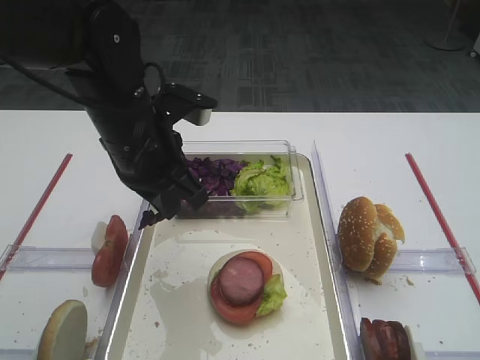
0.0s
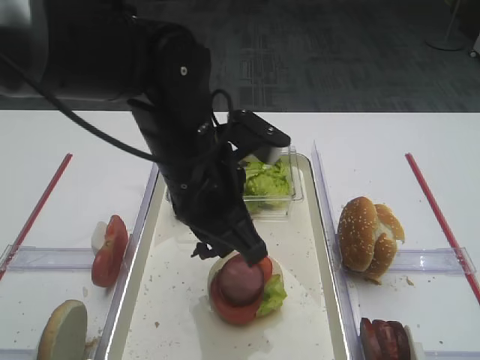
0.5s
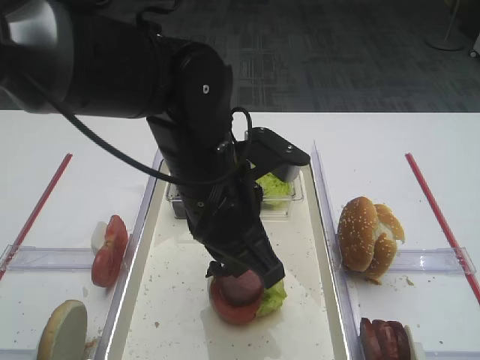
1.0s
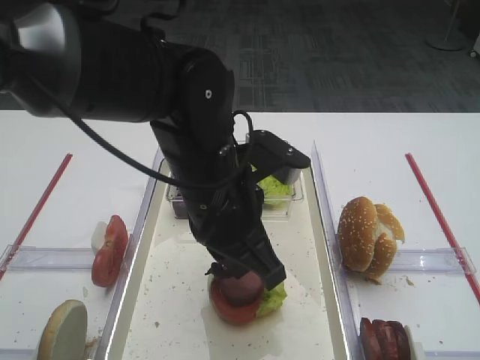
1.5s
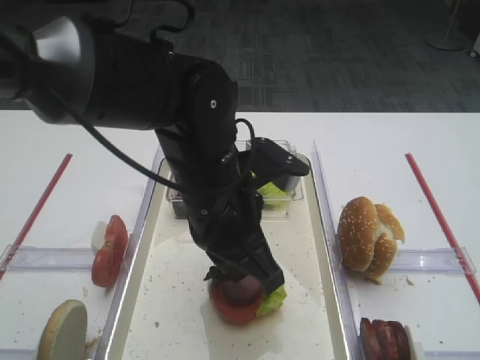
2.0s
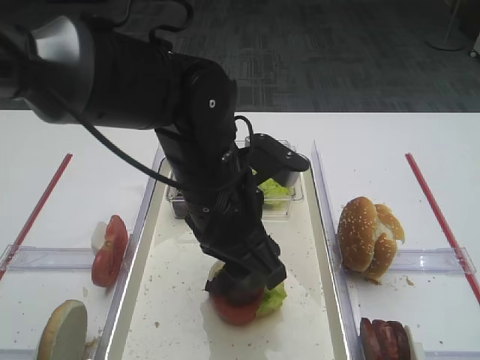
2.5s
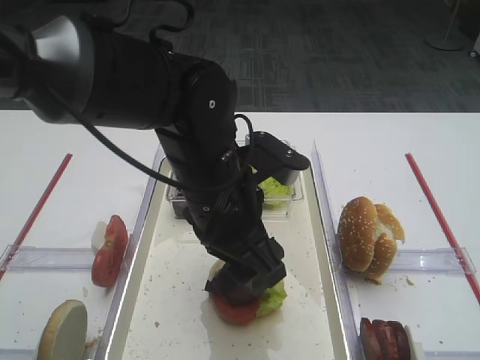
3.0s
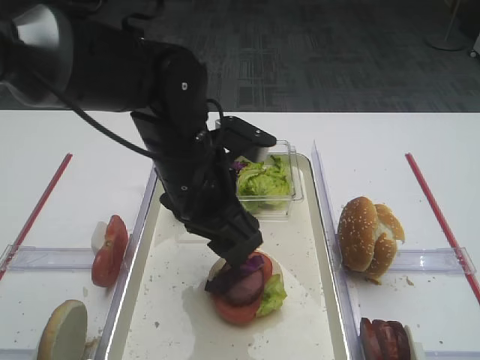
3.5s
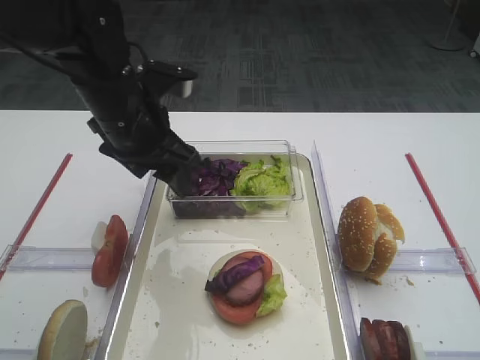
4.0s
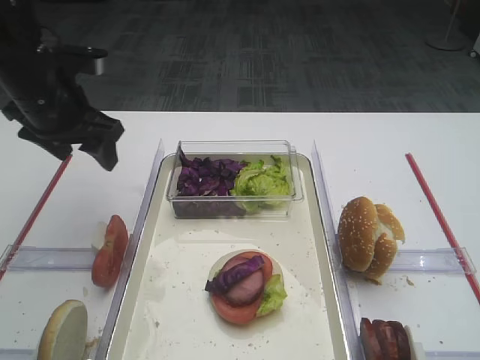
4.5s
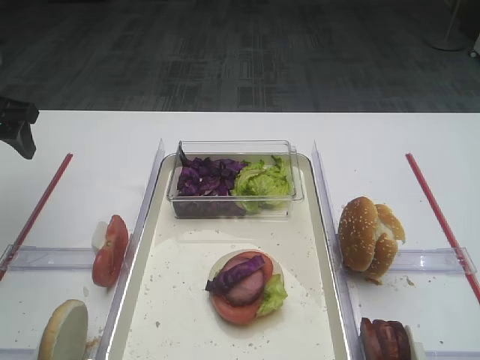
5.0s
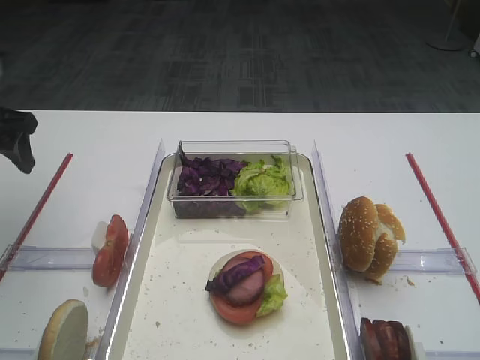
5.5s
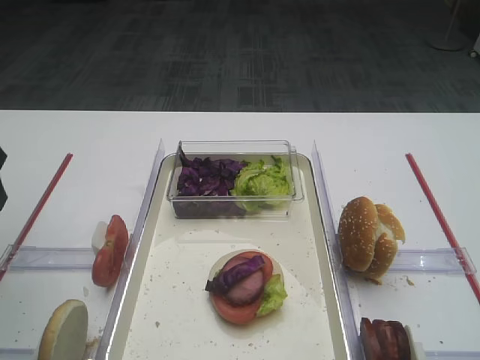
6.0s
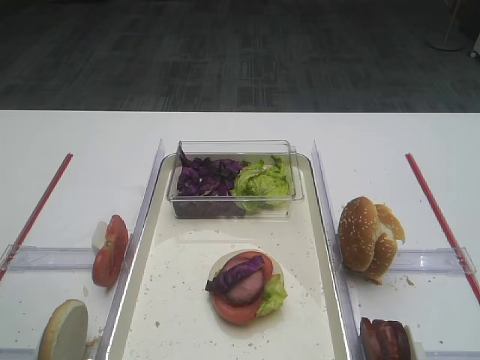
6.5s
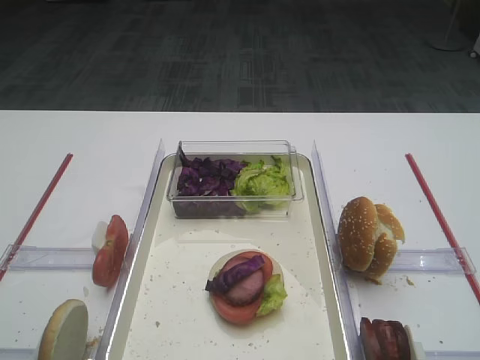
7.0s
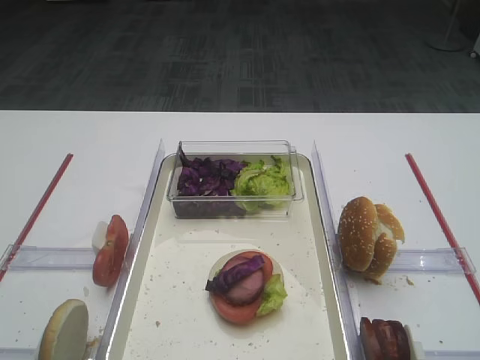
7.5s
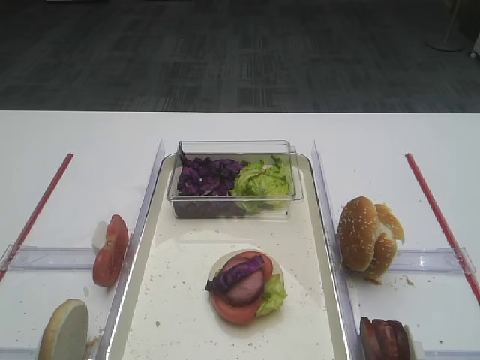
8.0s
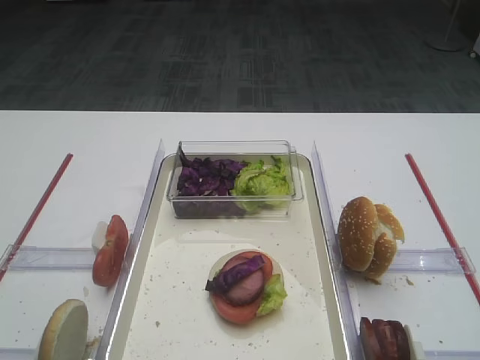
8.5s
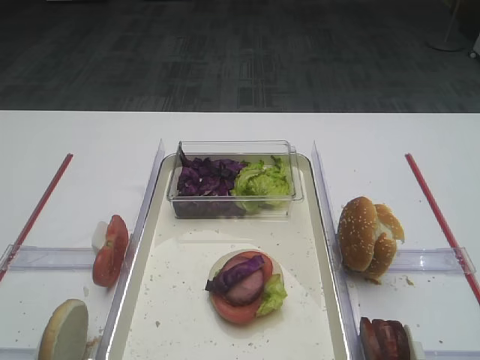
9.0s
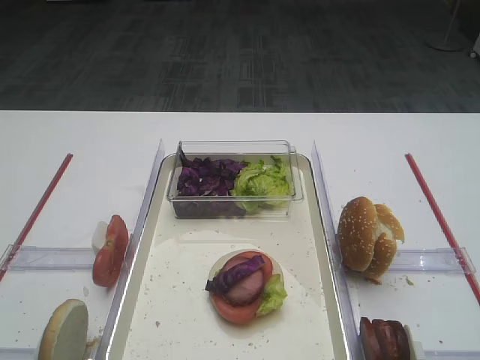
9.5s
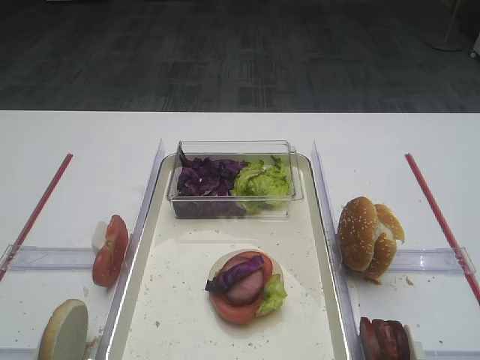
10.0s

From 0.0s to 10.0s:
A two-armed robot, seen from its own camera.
Step, from 0.0s to 3.5s: Place the purple cabbage on the cutlet with the left gripper.
From 0.0s to 2.0s: The left gripper heads to the right and backward, covering roughly 10 cm.
From 2.0s to 4.0s: The left gripper goes roughly 15 cm to the left and forward, and opens its fingers.
From 4.0s to 6.0s: The left gripper is displaced to the left by approximately 20 cm.
From 6.0s to 8.0s: The left gripper shifts roughly 30 cm backward.
From 8.0s to 10.0s: Both grippers stay put.

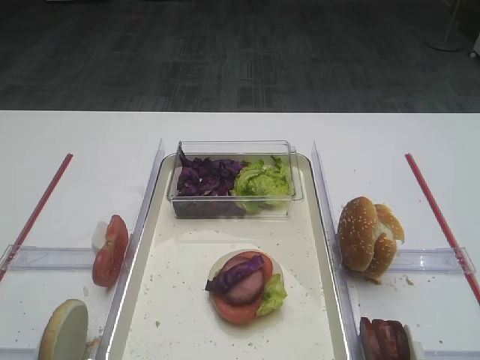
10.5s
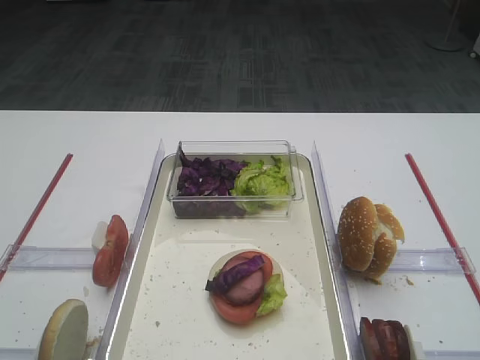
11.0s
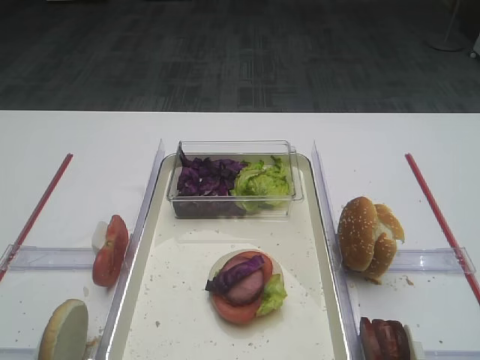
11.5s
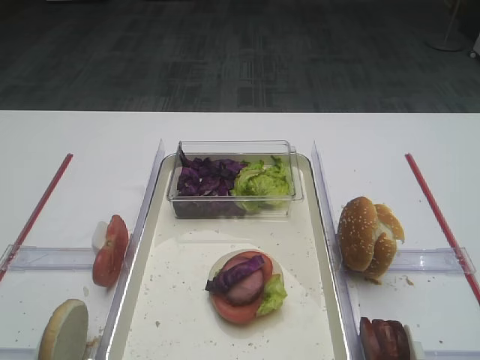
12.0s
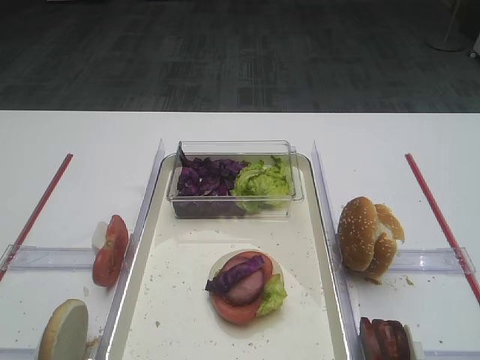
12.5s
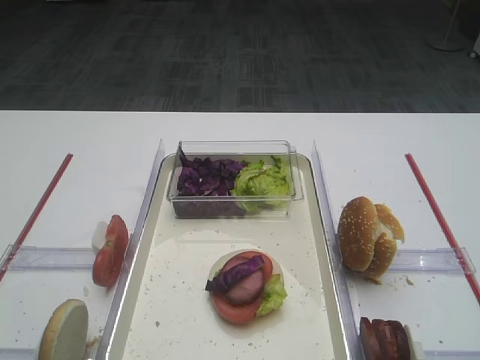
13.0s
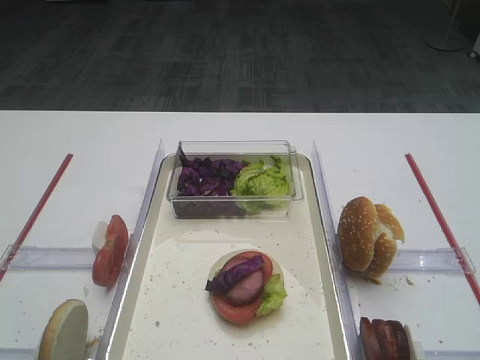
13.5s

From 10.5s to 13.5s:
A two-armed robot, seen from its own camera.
From 10.5s to 13.5s: Both grippers stay about where they are.
